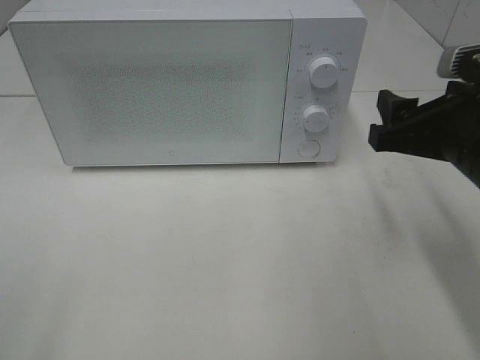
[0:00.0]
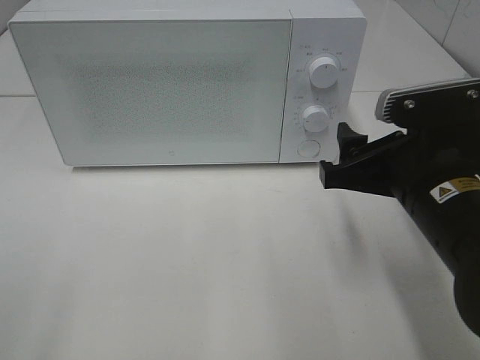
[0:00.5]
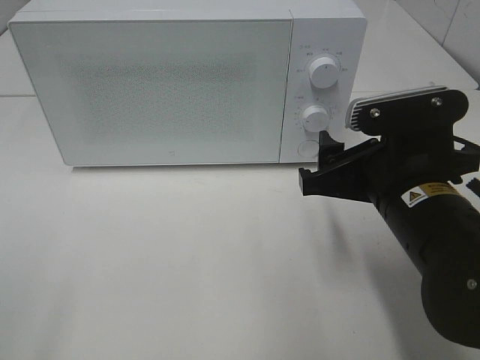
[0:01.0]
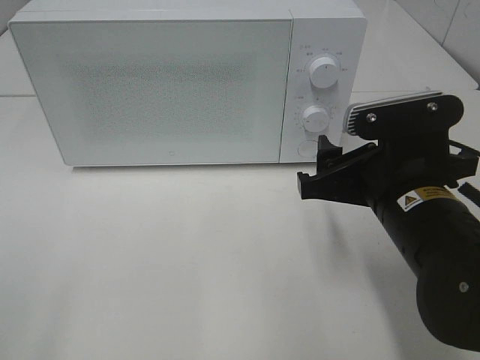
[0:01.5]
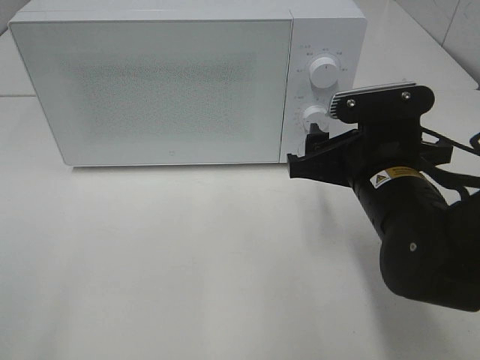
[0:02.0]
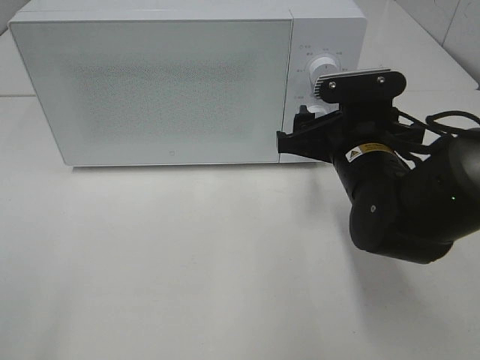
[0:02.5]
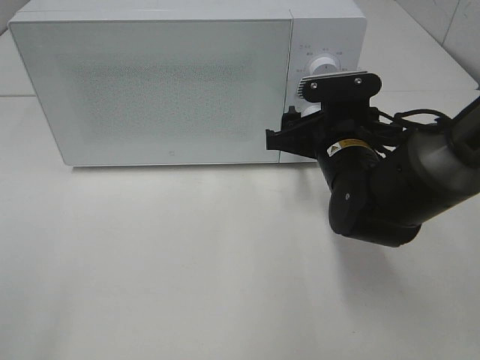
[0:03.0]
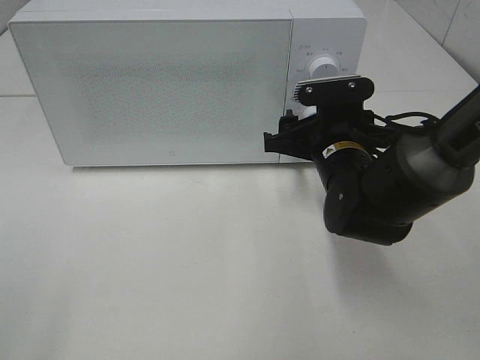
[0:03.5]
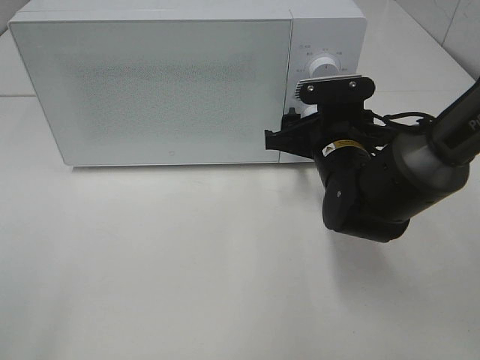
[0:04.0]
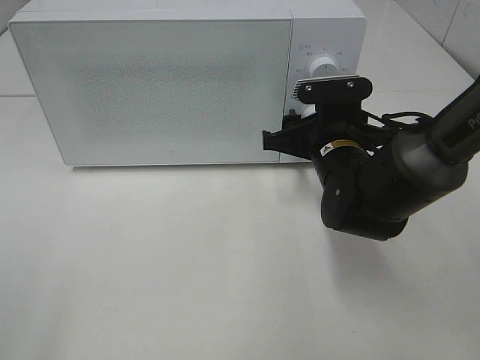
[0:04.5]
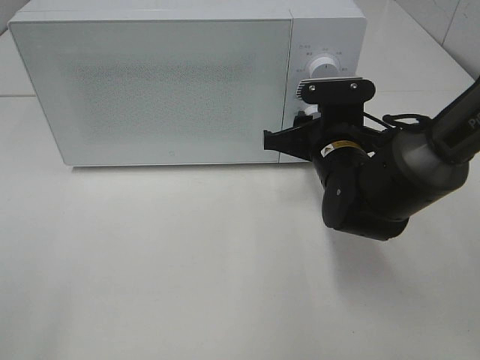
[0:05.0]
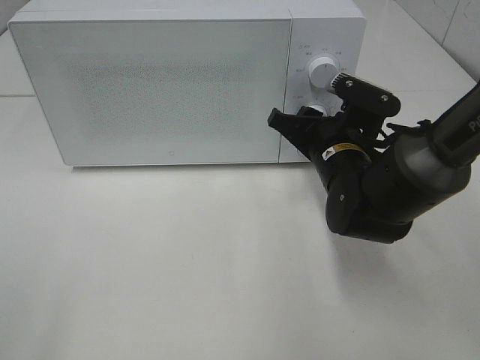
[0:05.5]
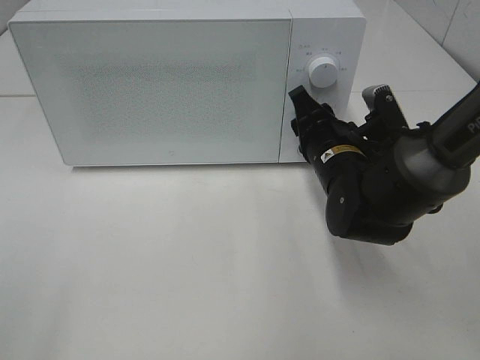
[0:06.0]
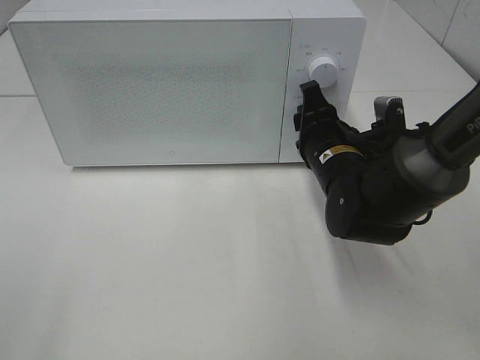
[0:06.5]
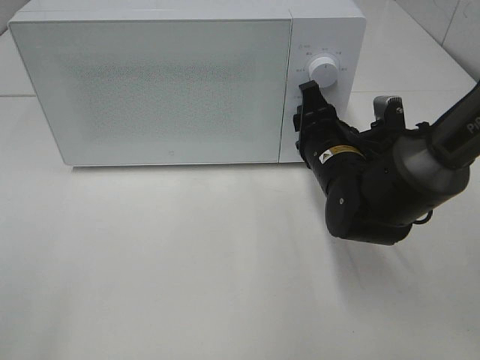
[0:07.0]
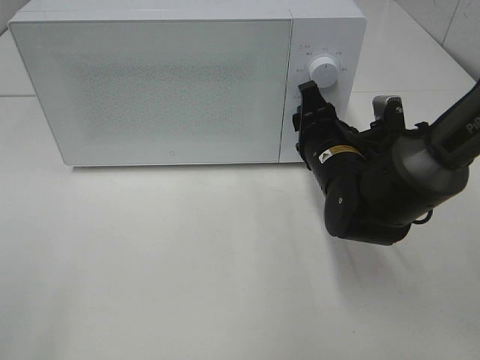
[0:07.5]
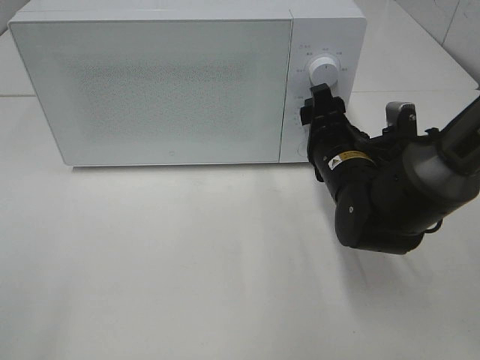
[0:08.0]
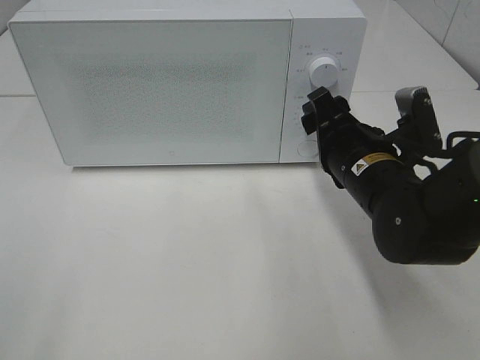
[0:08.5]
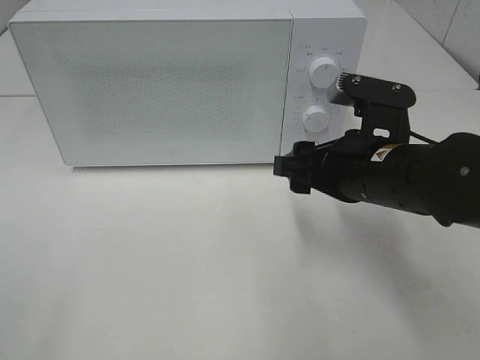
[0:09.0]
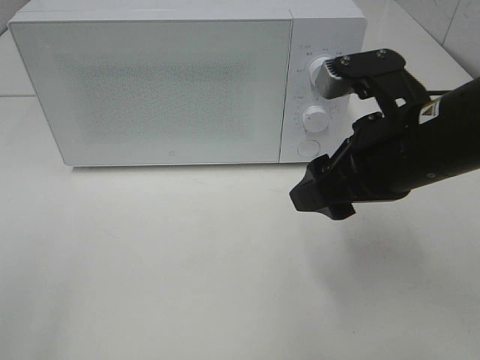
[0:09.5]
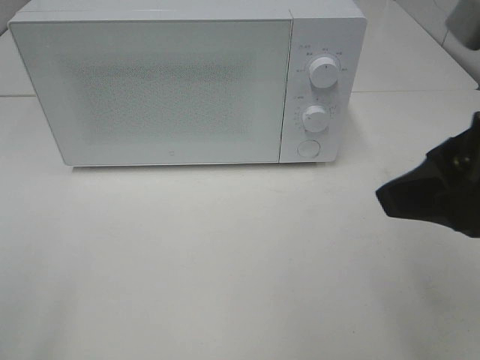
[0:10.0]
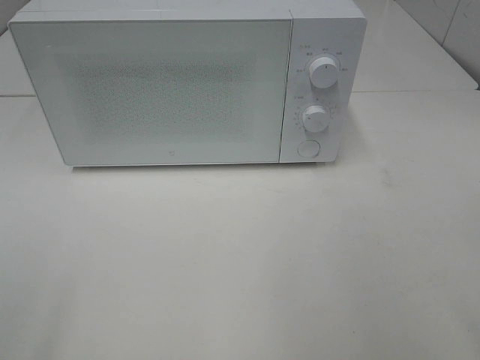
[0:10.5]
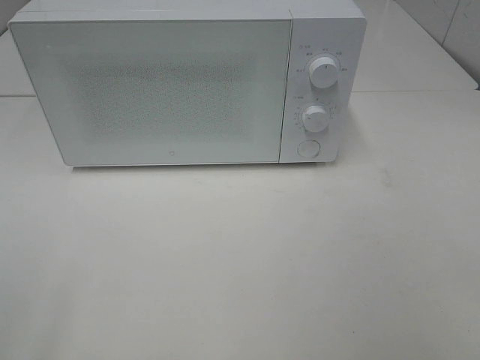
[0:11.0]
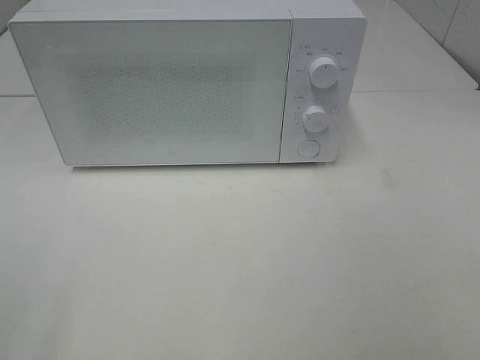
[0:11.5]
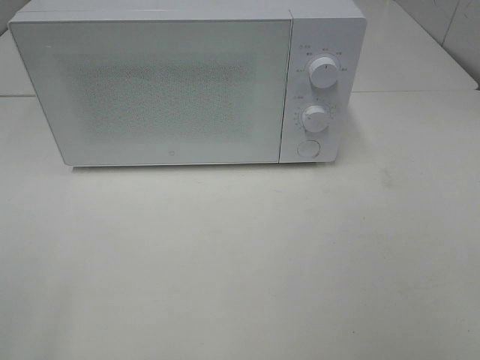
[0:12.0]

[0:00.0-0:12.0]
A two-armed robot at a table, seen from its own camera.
Task of the whole recording: Heat the burger.
Step, 0:00.0 to 0:07.5: Right hand: twist timer button.
0:00.0 to 0:02.0: The right gripper goes roughly 5 cm to the left.
0:02.0 to 0:04.0: The right gripper travels forward by about 10 cm.
0:06.0 to 0:08.0: The grippers move only a little.
0:08.0 to 0:10.0: The right gripper goes roughly 25 cm upward and backward.
0:10.0 to 0:12.0: The right gripper shifts approximately 20 cm backward and to the right.

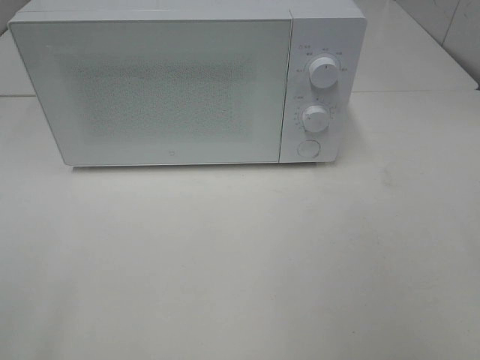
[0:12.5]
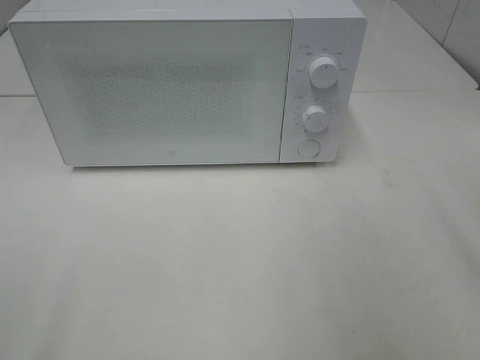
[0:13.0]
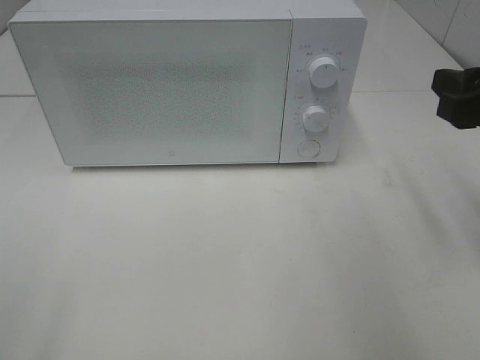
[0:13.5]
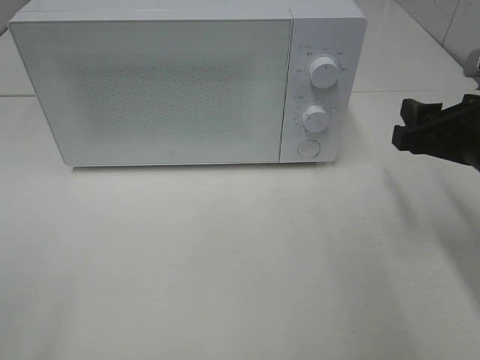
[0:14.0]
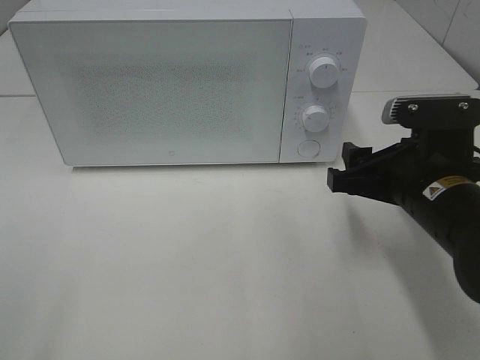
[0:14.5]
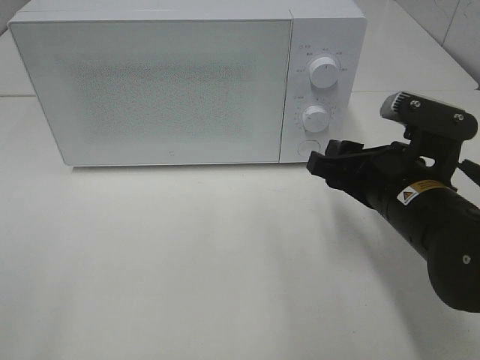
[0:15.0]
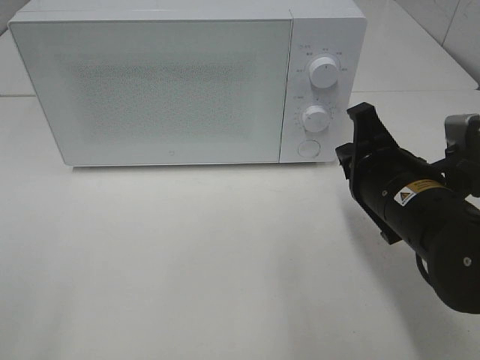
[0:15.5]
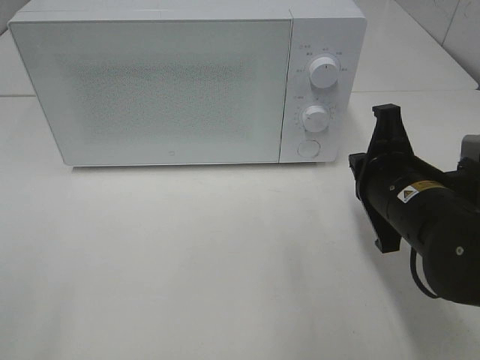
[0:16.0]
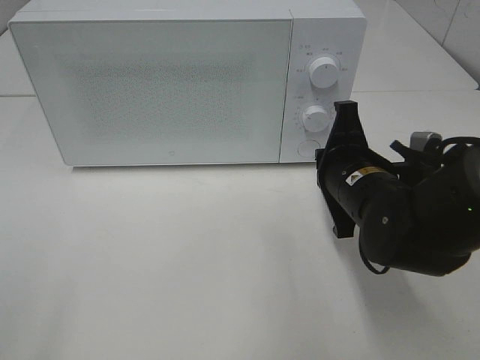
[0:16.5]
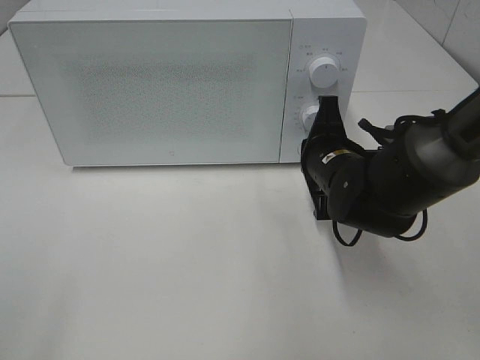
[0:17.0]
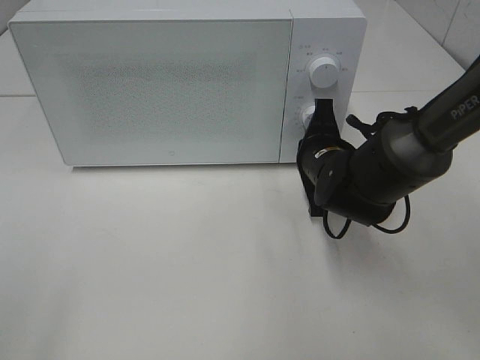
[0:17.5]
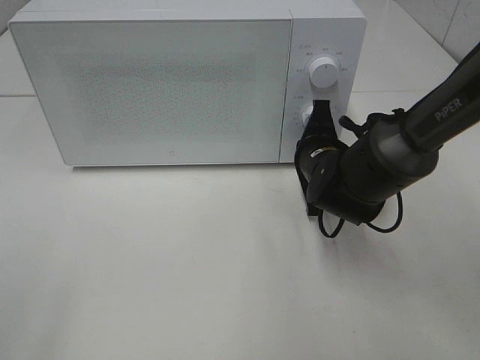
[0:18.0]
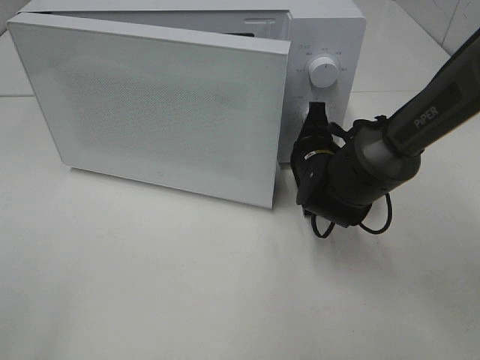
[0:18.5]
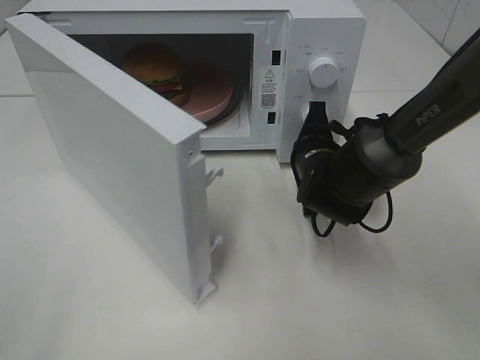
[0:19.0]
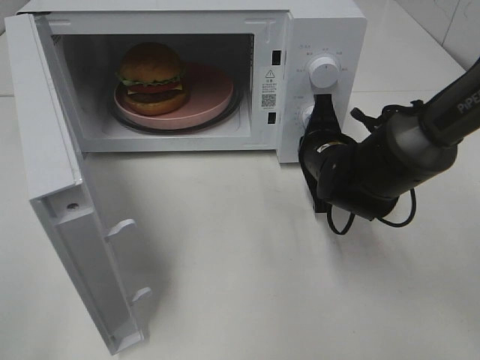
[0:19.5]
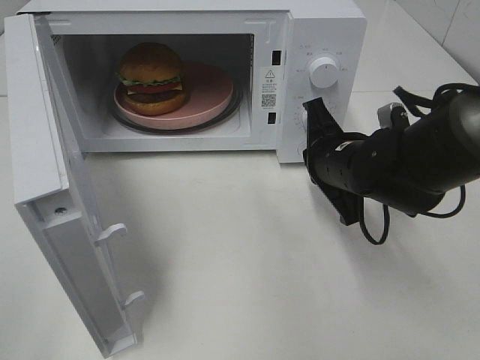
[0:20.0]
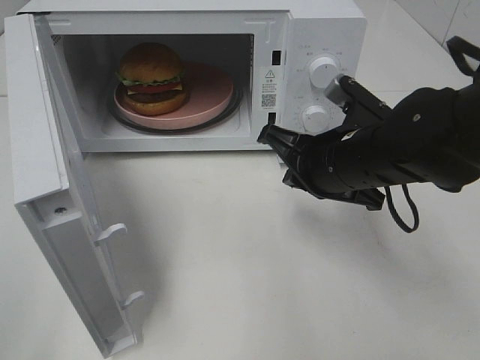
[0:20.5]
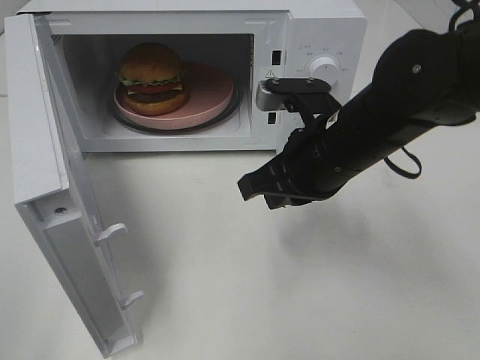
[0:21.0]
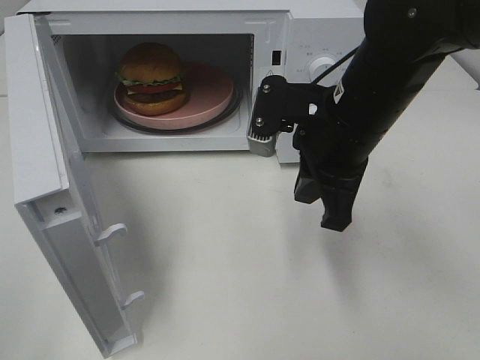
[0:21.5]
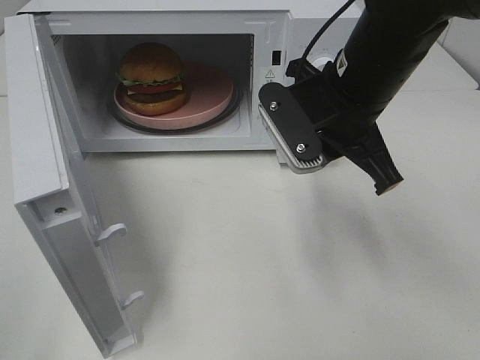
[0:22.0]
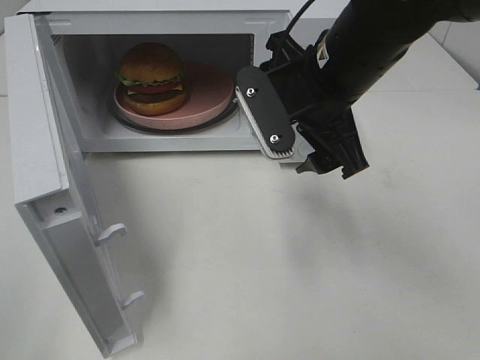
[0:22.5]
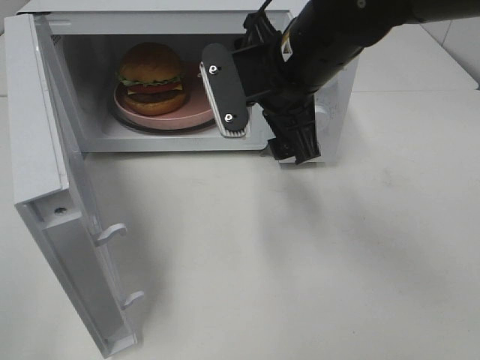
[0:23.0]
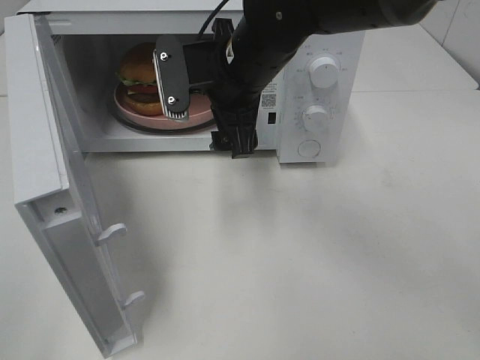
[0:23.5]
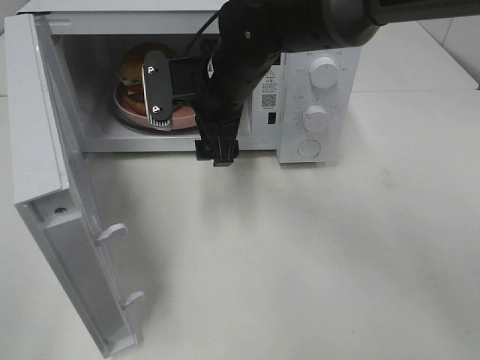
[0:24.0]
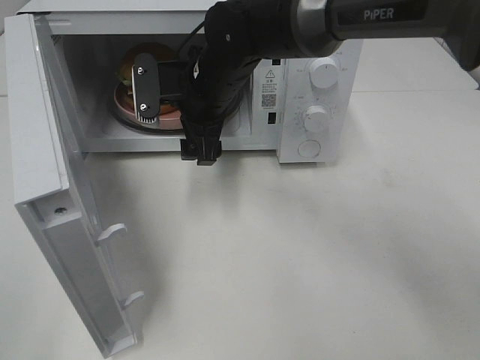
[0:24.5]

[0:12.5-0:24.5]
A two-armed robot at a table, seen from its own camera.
Task of the whole recording: Heat the burger.
Step, 0:12.5 to 0:19.5: Right hand: press the switch.
0:12.5 to 0:14.5: The right gripper travels downward, forward and to the left by approximately 25 cm.
0:14.5 to 0:16.5: The right gripper goes about 5 cm to the left, and closes up.
0:16.5 to 0:18.5: The right gripper travels forward by about 10 cm.
0:18.5 to 0:20.5: The right gripper travels upward and backward by roughly 10 cm.
0:20.5 to 0:22.5: The right gripper heads upward, covering approximately 10 cm, and opens.
0:22.5 to 0:24.5: The right gripper goes approximately 15 cm to the left, forward and downward.

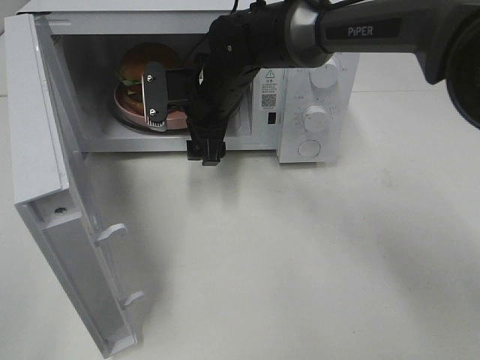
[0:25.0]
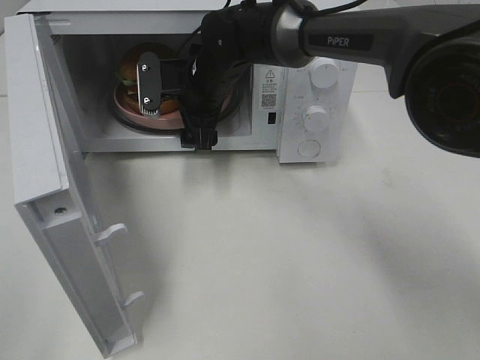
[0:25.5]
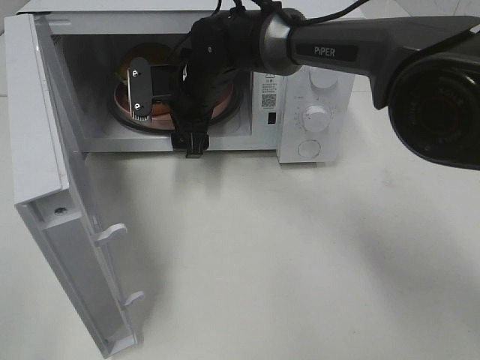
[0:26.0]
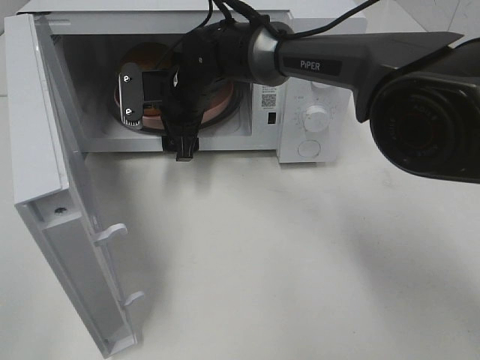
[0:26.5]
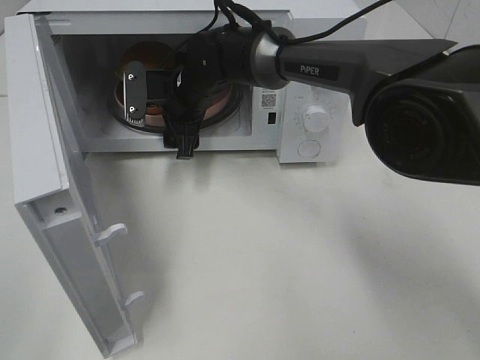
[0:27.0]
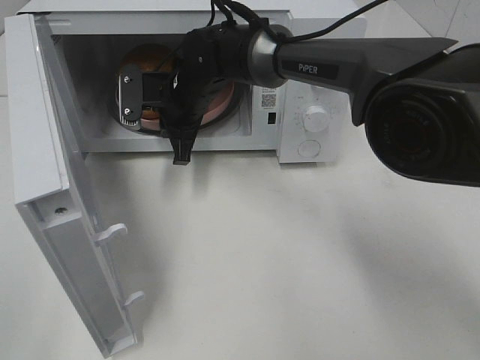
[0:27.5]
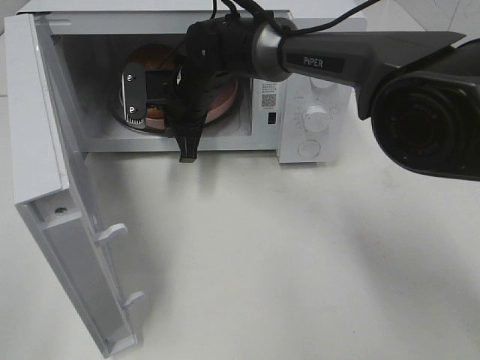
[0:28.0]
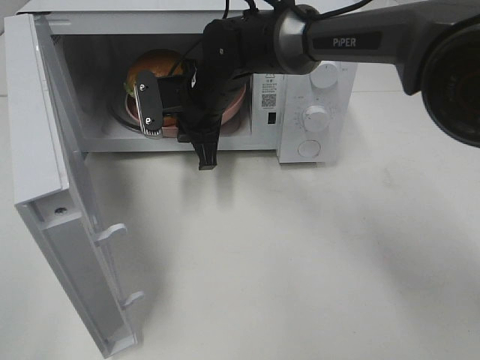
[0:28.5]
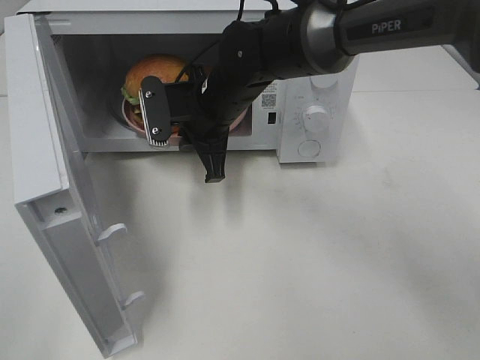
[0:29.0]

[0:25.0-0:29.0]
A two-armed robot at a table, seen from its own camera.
Task of the whole recording: Heat the burger.
Step, 0:25.0 to 0:27.0: Right hand: grab the plate with the hamburger.
0:25.0 to 0:27.0: The right gripper ends up about 5 cm from where it was.
0:27.0 to 0:29.0: The right gripper moves backward, about 5 cm, and closes up.
